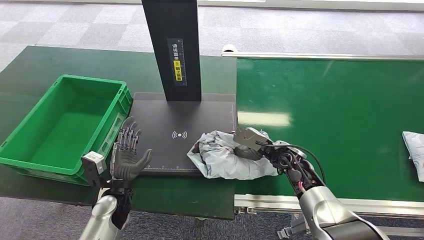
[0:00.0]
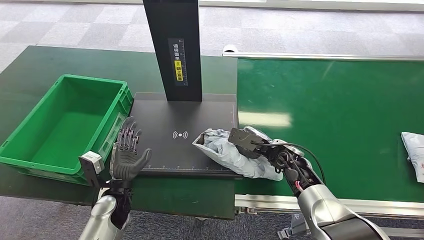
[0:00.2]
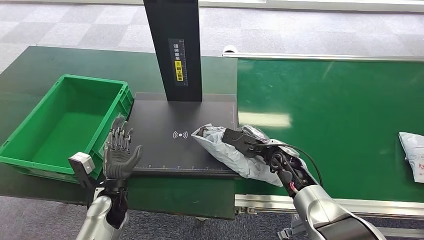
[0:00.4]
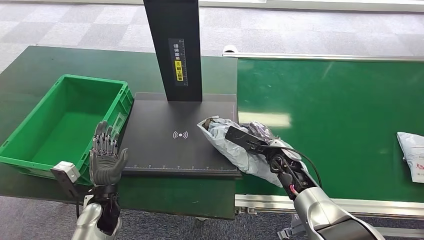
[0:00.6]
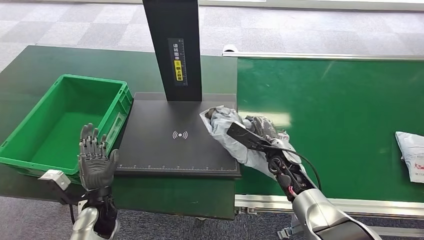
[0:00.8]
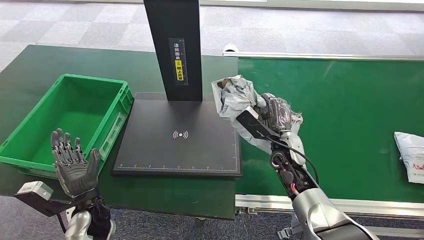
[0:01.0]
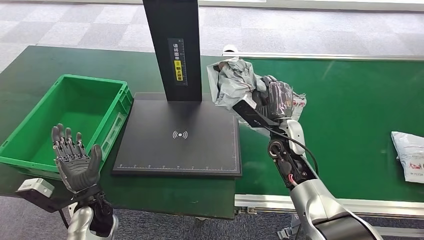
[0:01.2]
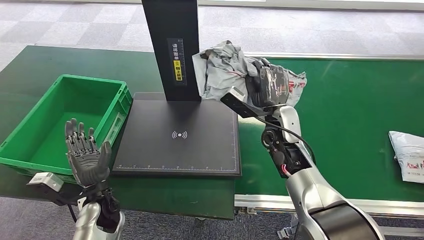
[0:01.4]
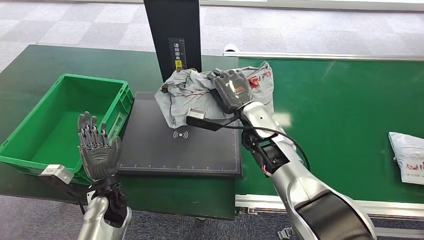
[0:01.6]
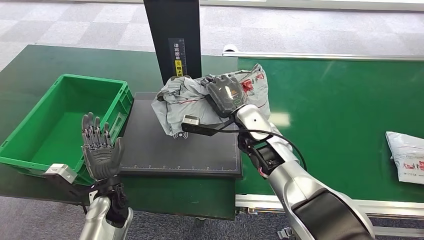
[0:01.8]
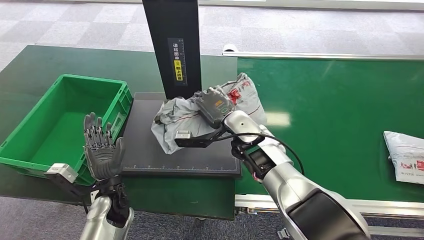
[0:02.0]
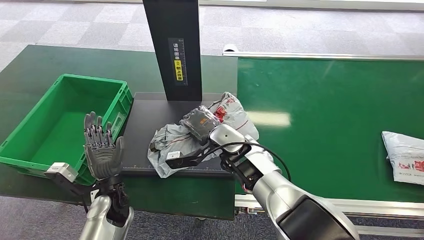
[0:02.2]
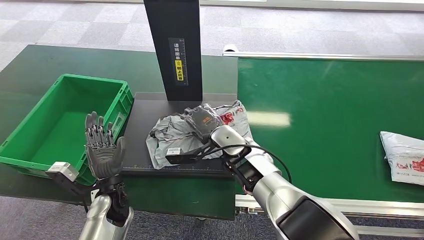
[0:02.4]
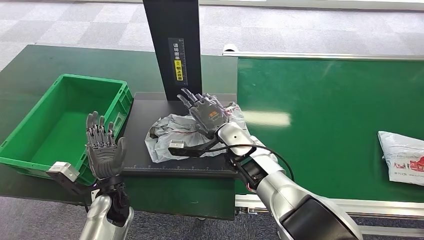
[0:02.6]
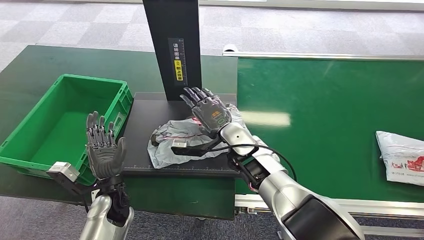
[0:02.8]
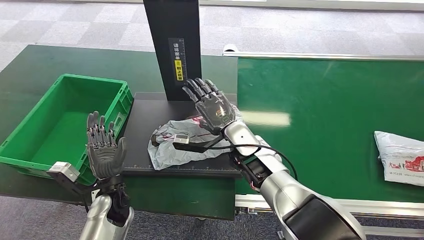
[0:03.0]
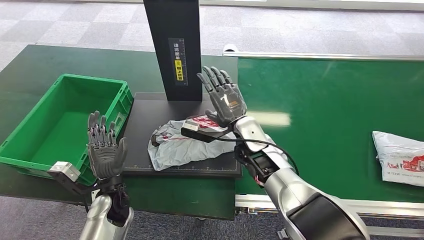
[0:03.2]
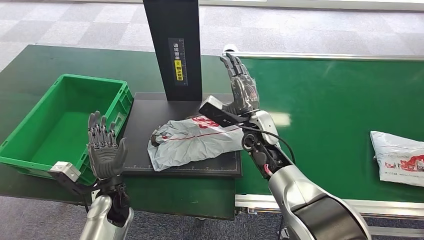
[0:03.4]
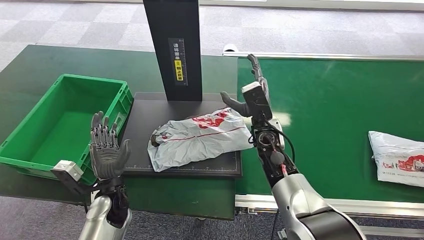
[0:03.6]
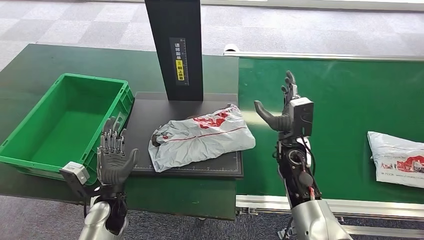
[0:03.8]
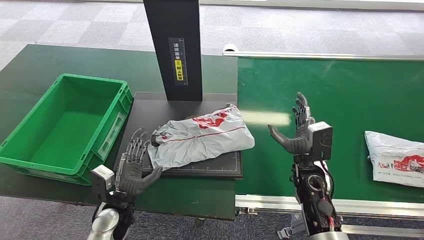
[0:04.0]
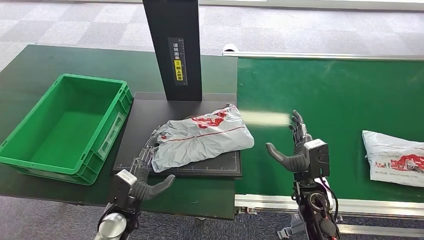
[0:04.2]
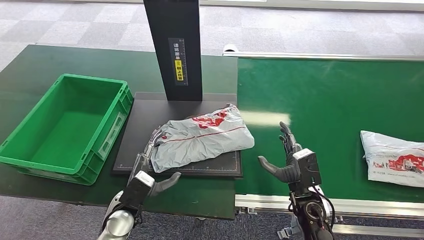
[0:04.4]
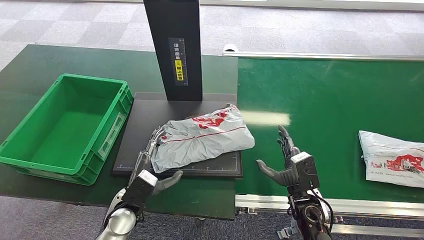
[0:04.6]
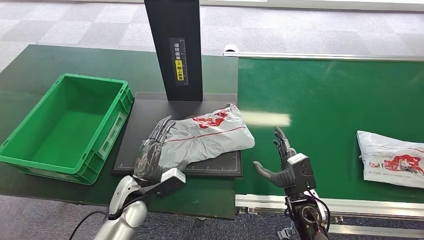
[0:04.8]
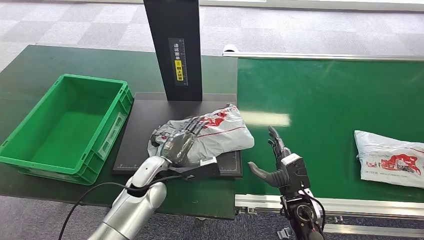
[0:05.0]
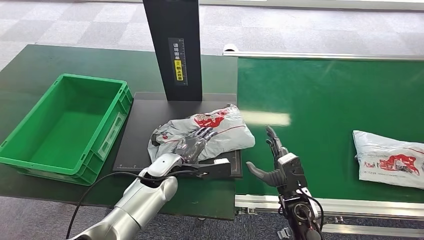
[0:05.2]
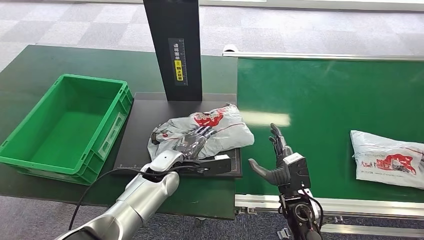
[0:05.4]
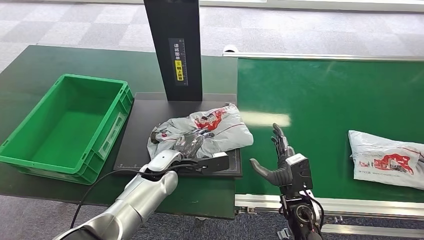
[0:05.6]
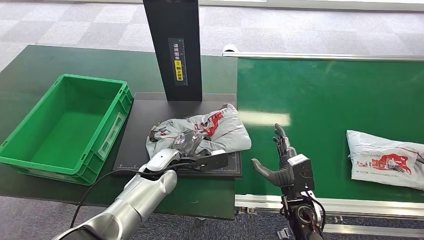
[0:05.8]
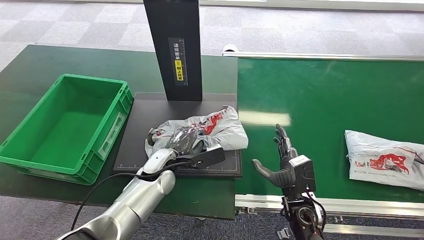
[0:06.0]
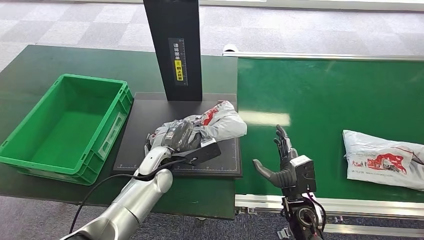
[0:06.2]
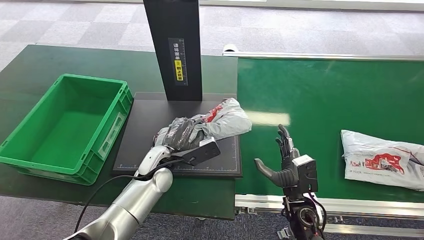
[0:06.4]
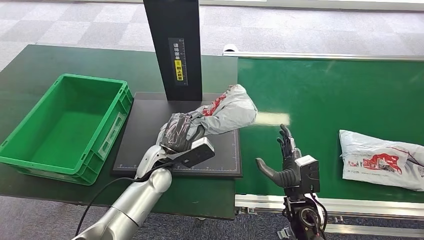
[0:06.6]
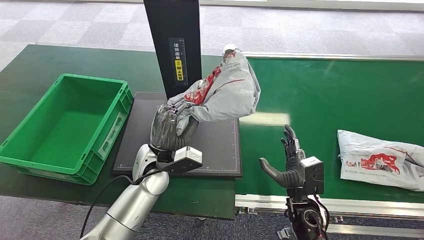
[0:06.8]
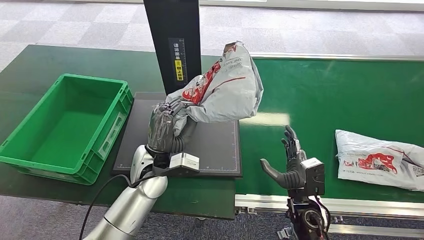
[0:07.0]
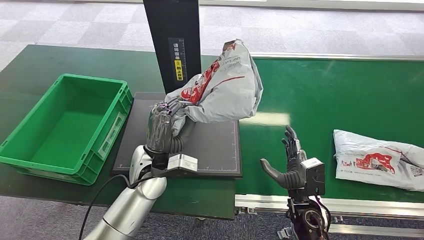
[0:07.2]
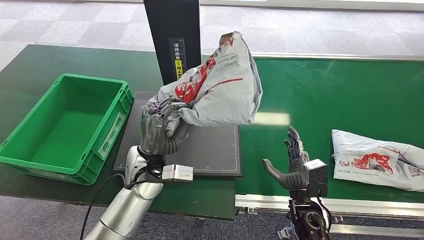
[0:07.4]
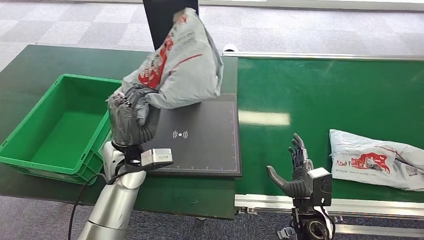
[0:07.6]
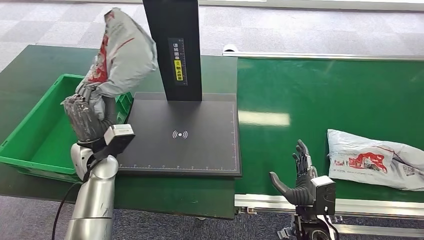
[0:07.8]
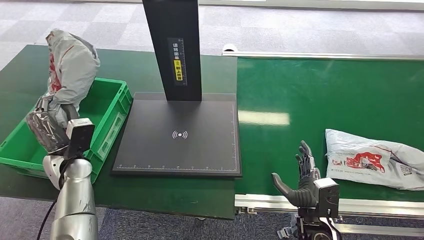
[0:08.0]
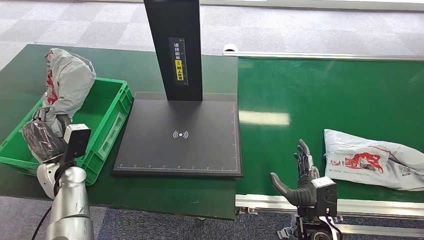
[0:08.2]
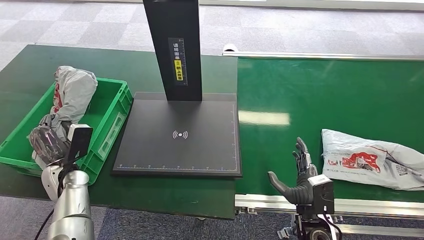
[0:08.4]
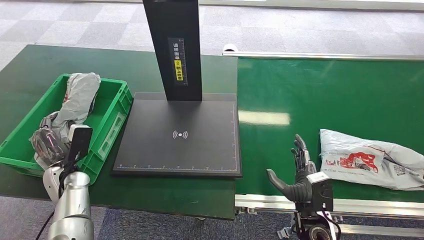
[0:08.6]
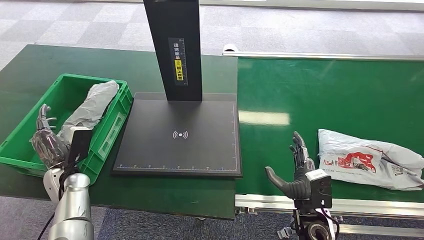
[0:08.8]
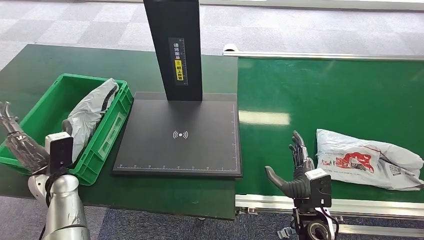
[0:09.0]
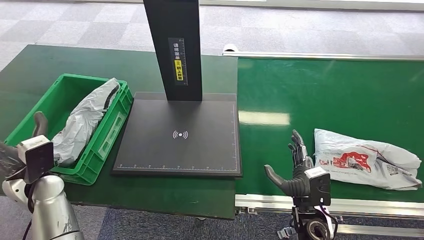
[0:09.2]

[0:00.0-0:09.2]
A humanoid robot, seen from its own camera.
Task of the whole recording: Weigh the package on the weighing device and place it in the left basket.
Step, 0:00.0 to 0:03.6: Place the package onto the inbound machine.
Step, 0:03.8 to 0:06.8: Pick up the package from the inbound machine.
Step, 0:07.0 to 0:09.2: Place the package into the parcel locker.
0:03.0 to 0:04.6: The right hand shifts about 25 cm to the right, backward and downward.
0:04.6 to 0:06.2: The left hand moves forward and to the right, approximately 10 cm.
